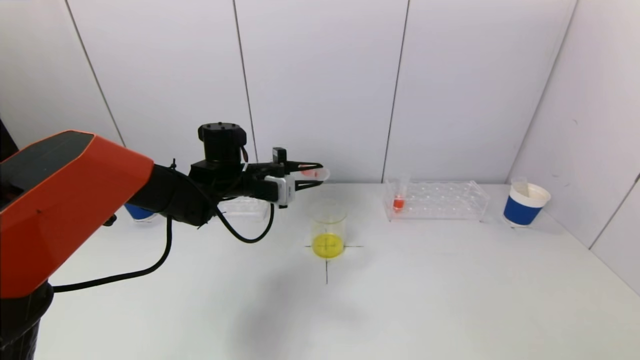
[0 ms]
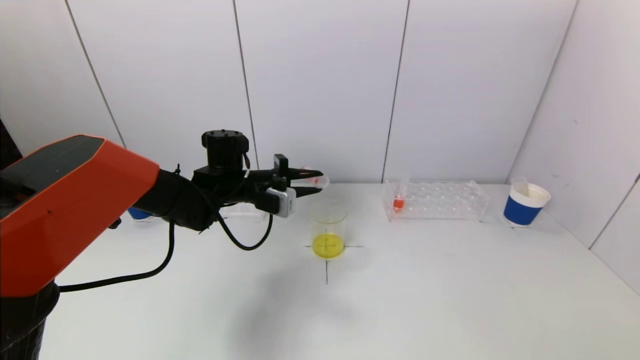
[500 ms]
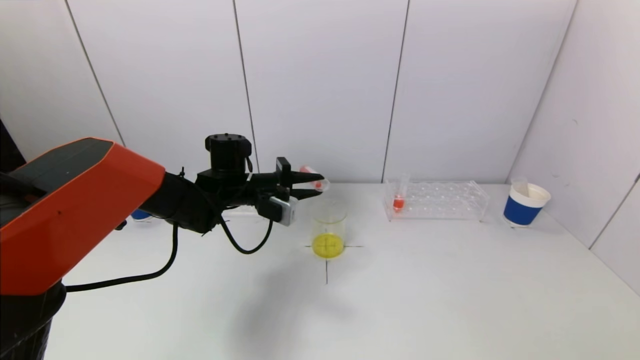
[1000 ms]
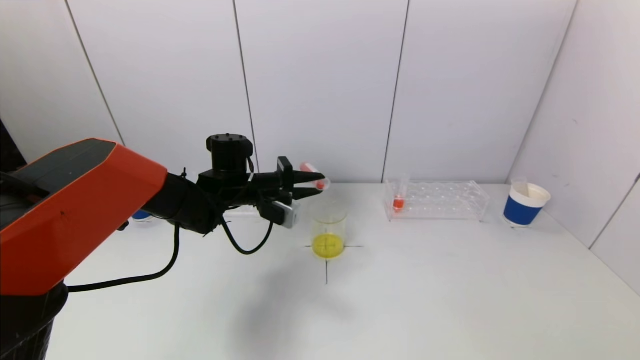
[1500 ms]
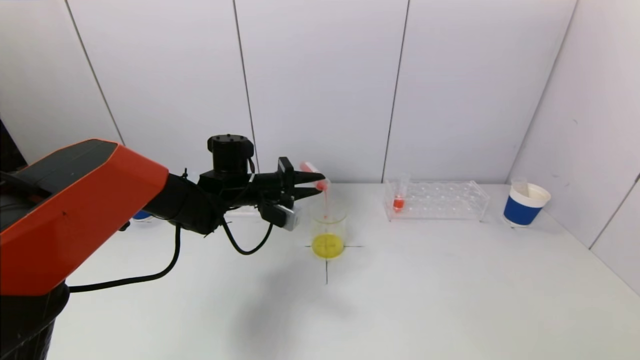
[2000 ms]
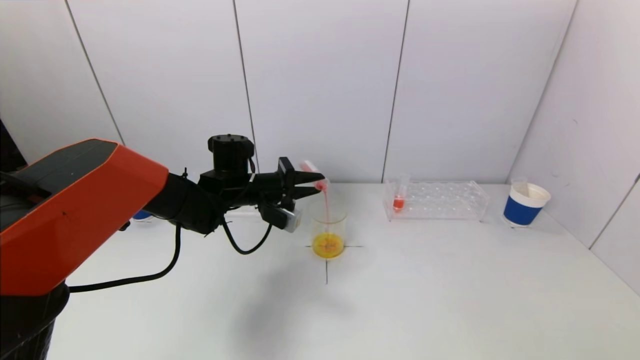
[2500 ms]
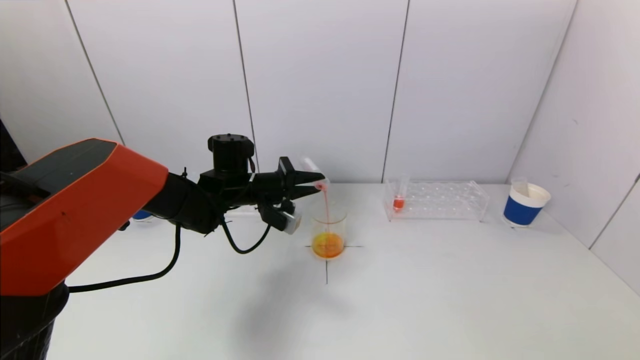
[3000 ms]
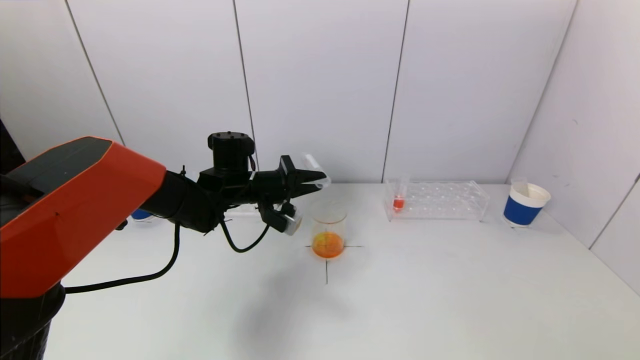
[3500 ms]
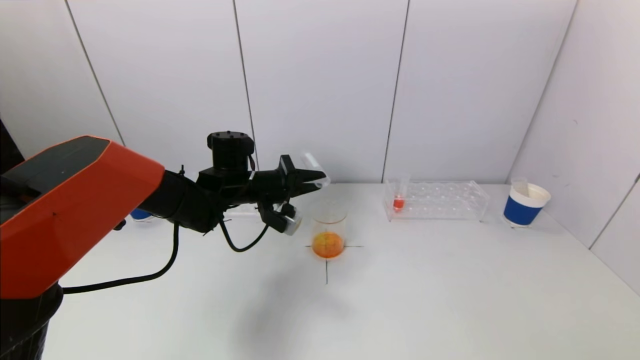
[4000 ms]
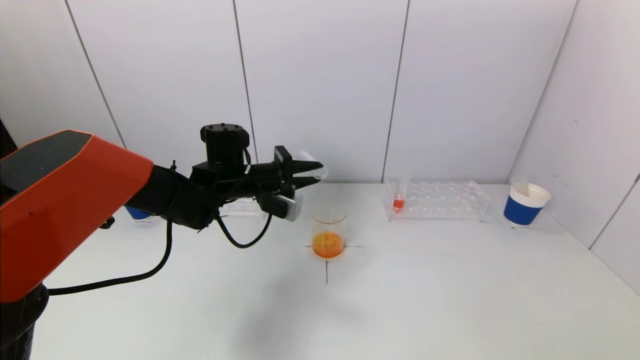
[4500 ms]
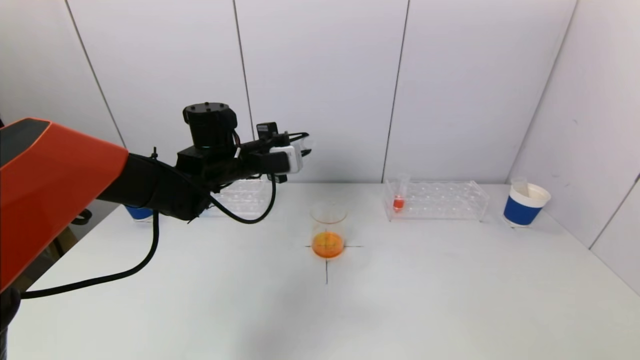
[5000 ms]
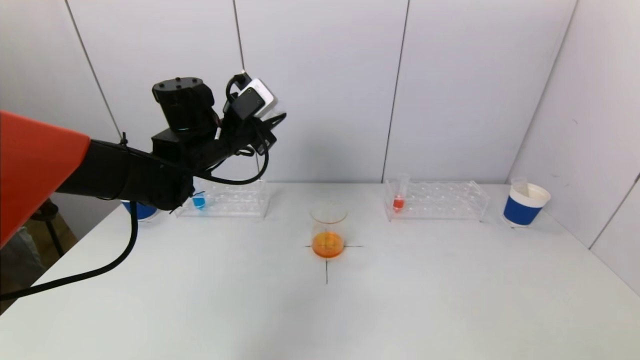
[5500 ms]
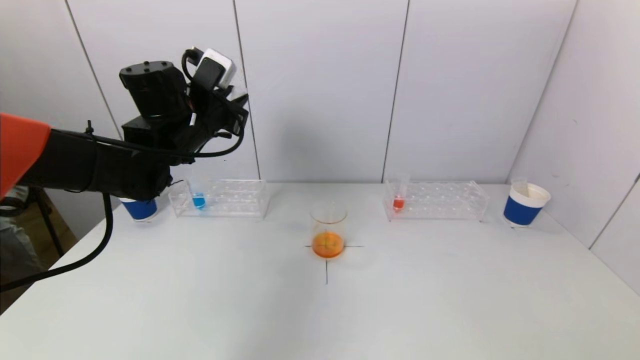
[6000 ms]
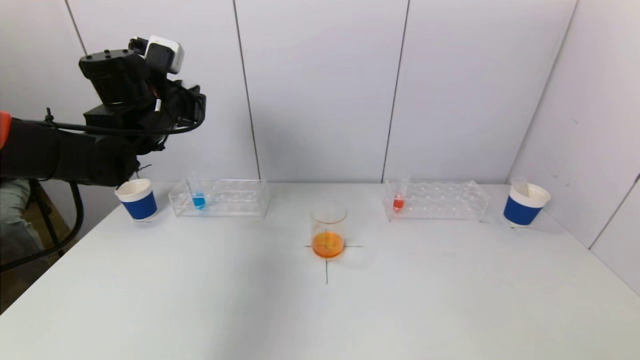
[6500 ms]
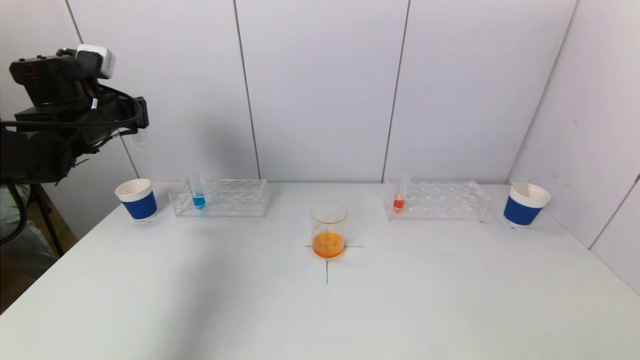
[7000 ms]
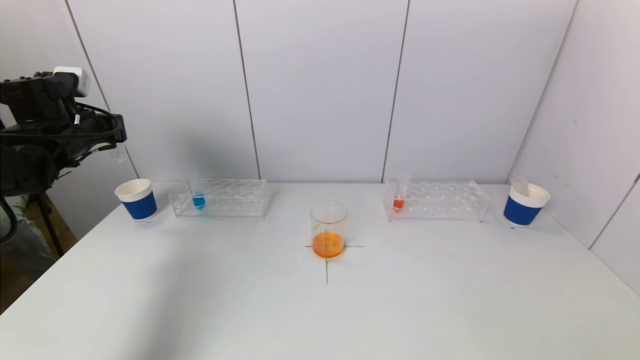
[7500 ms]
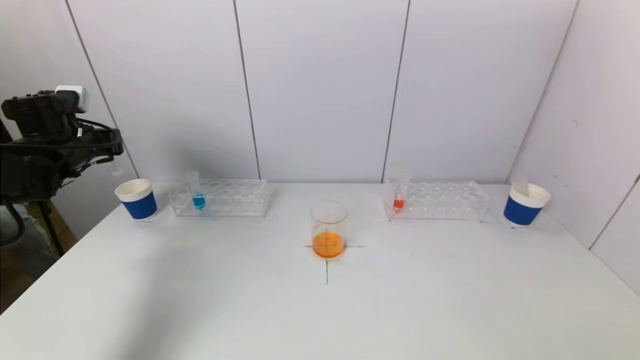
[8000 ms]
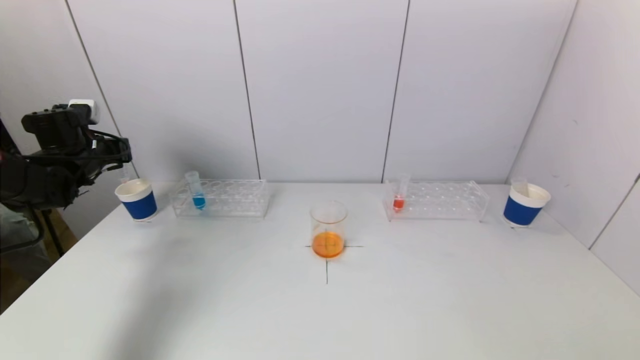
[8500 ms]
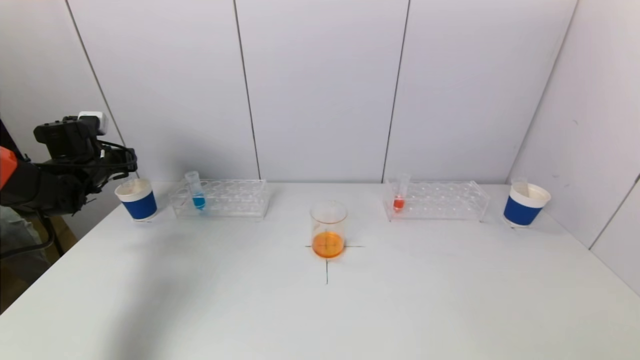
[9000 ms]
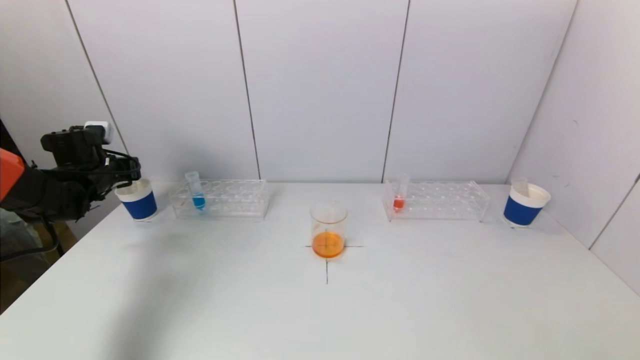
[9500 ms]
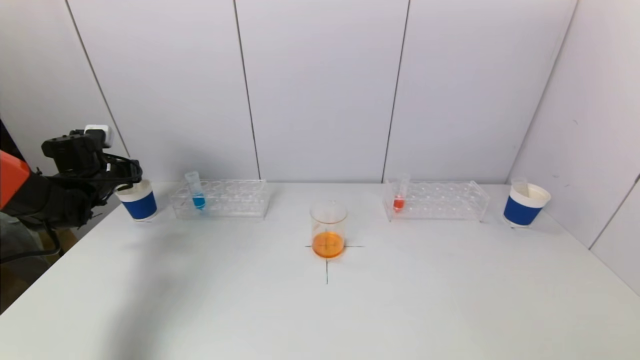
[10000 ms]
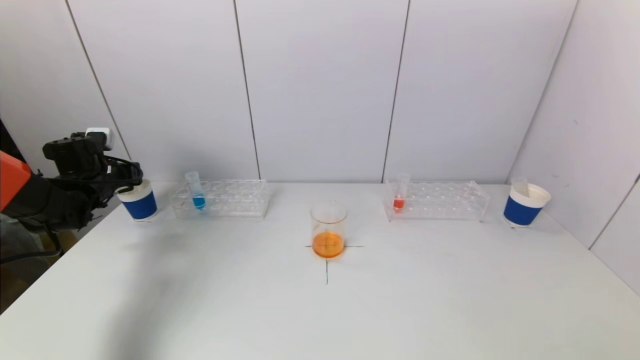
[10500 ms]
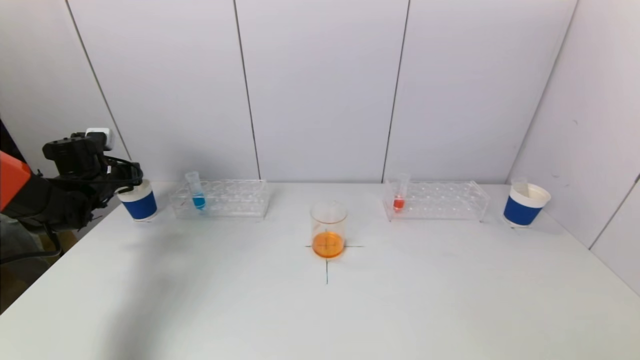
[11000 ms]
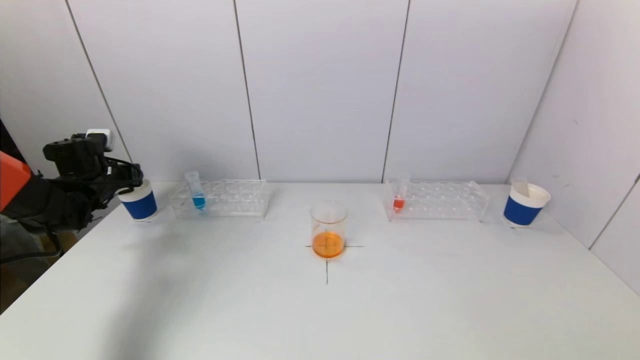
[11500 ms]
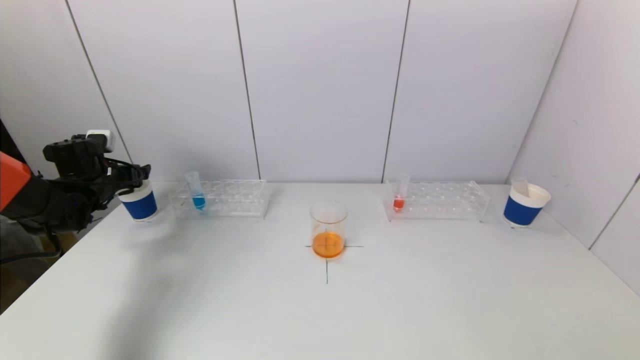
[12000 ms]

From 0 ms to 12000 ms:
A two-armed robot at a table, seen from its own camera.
Task of the whole recording: pick up a test tube with pigment on left test tube rack and a test tube with pigment on right test tube rack by grippers and pour them into the beaker.
Step, from 0 ms to 3500 ms: Pour the red reagent into the graduated cylinder with the left gripper.
Step, from 4000 ms to 11500 ms: Place the test tube into the paper cup with the left gripper.
From 0 ms to 2000 ms: The grippers stay close to where they were, moving slightly.
From 2000 ms to 4000 ms: The grippers move only a little.
From 4000 ms to 6000 ms: The left gripper moves upward and to the left, approximately 15 cm.
From 6000 ms to 8000 ms: The left gripper shifts roughly 20 cm to the left.
From 8000 ms to 10000 ms: The left gripper is displaced downward by approximately 10 cm.
From 10000 ms to 12000 ms: The left gripper opens up.

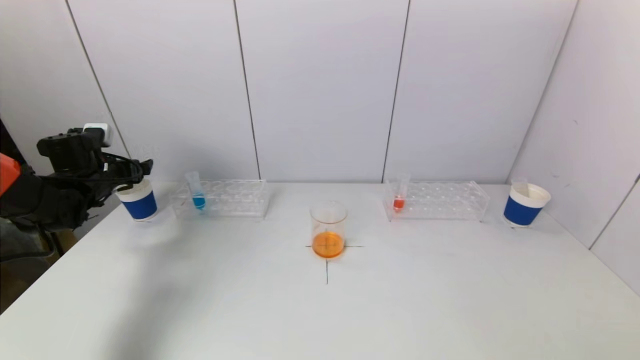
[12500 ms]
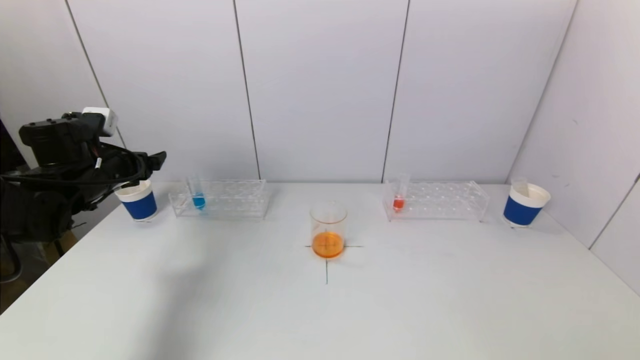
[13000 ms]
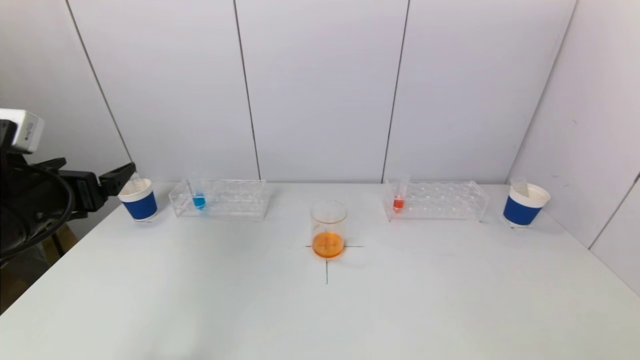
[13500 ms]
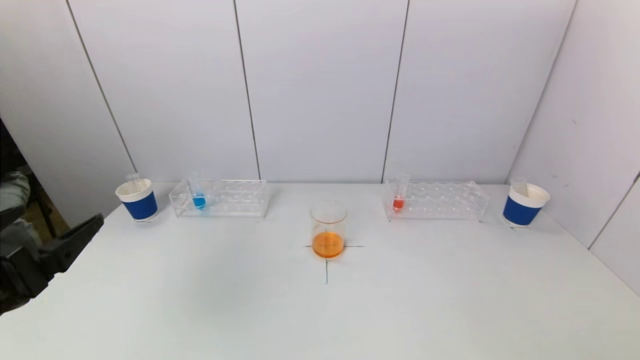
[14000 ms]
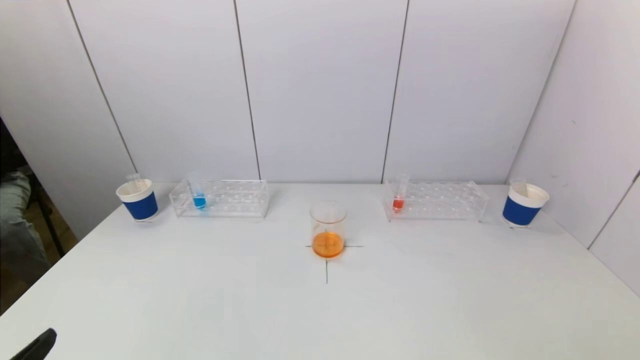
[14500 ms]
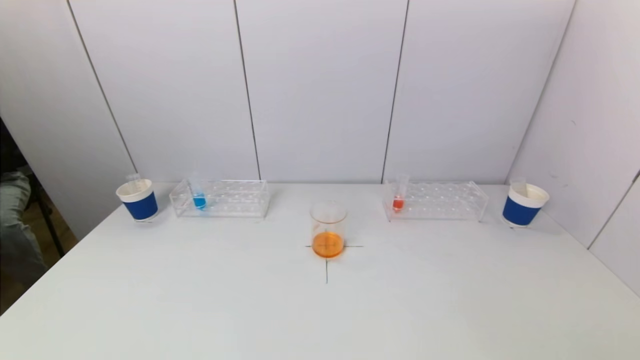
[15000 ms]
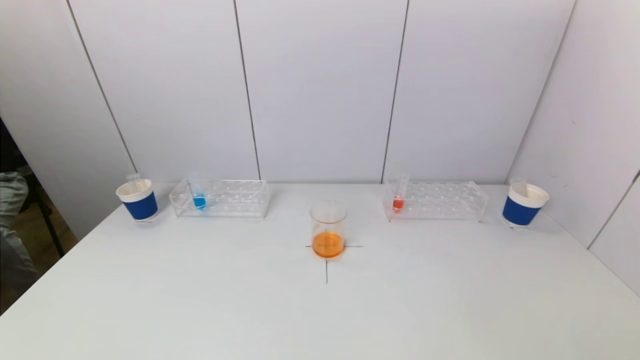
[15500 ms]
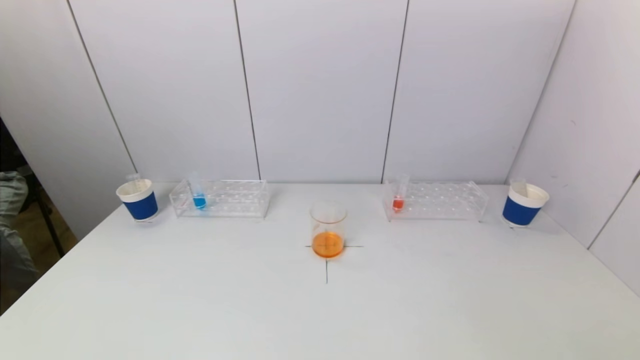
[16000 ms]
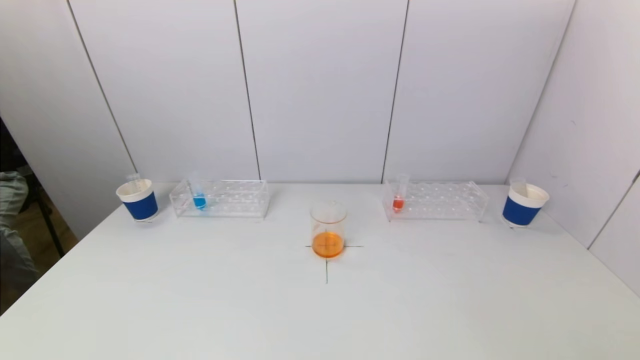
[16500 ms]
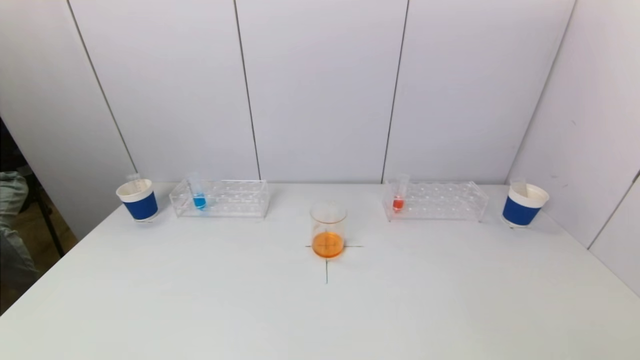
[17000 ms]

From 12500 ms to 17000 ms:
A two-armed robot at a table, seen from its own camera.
Task of the whole recording: pick up a test tube with pigment on left test tube rack and a test tube with pigment on right test tube rack by grippers and pour them into the beaker.
From 12500 ms to 14500 ms: The left gripper goes some 40 cm backward.
From 14500 ms to 17000 ms: The left gripper is displaced downward by some 10 cm.
